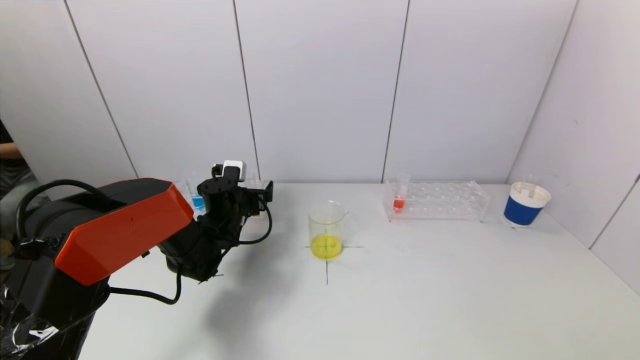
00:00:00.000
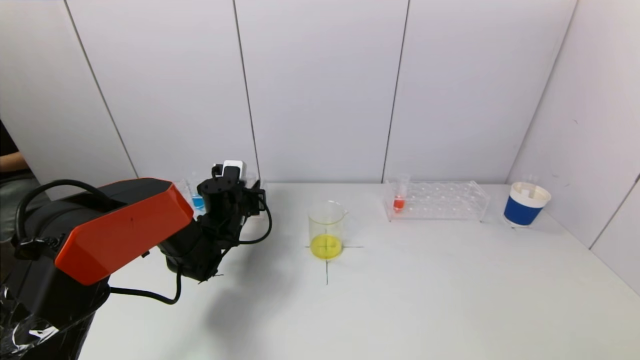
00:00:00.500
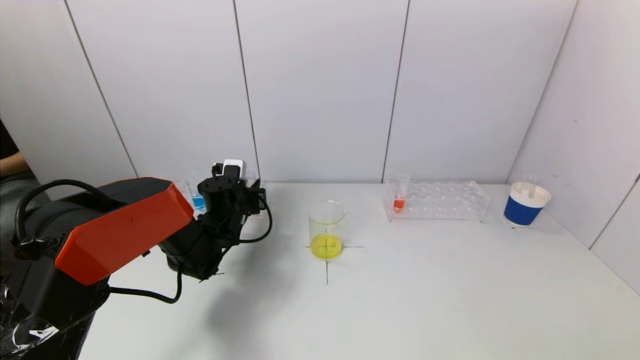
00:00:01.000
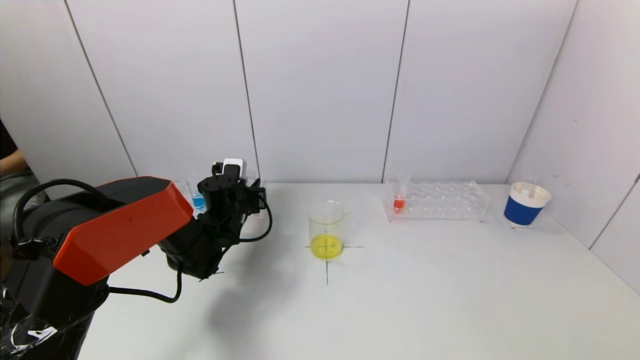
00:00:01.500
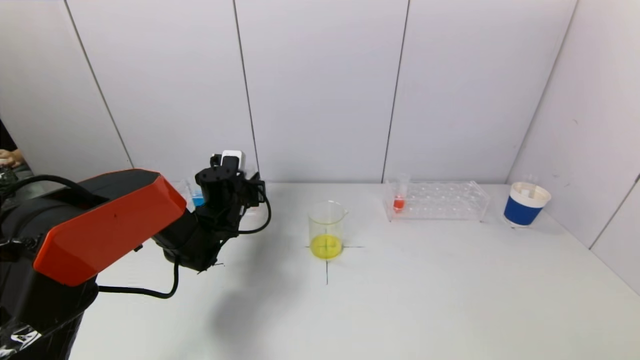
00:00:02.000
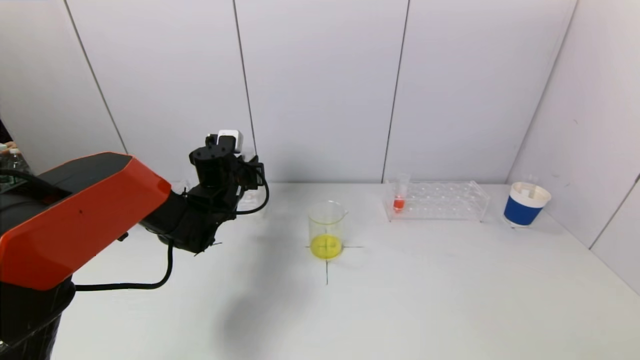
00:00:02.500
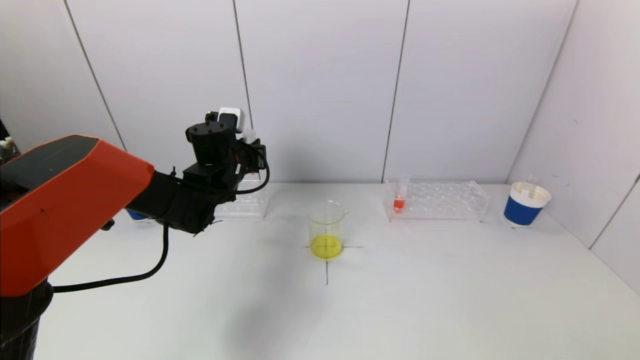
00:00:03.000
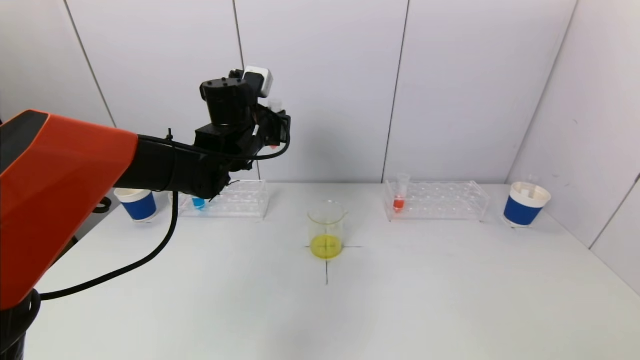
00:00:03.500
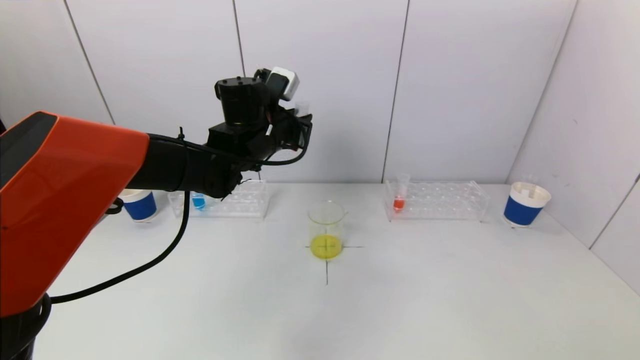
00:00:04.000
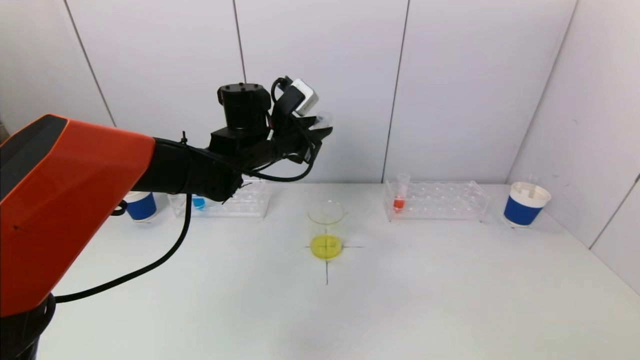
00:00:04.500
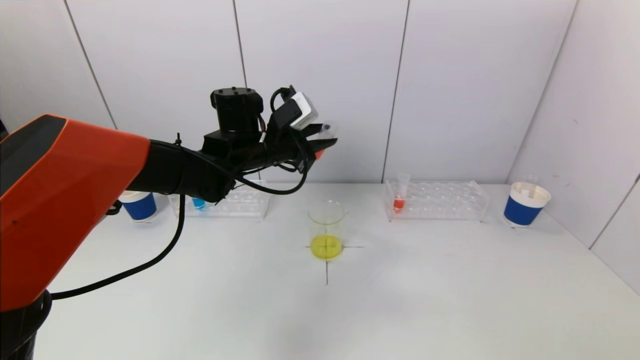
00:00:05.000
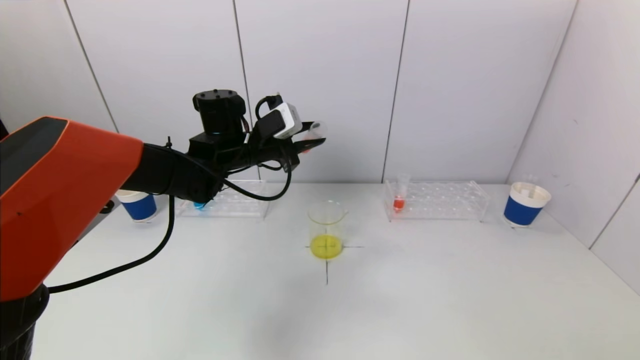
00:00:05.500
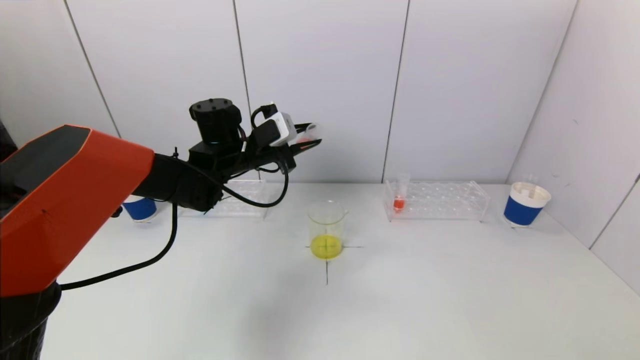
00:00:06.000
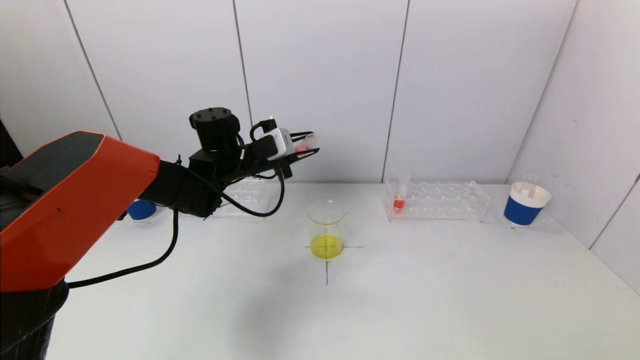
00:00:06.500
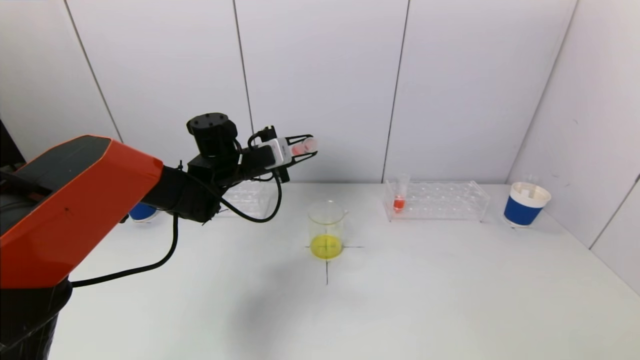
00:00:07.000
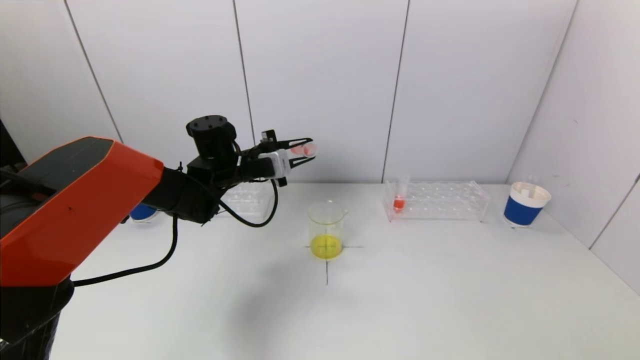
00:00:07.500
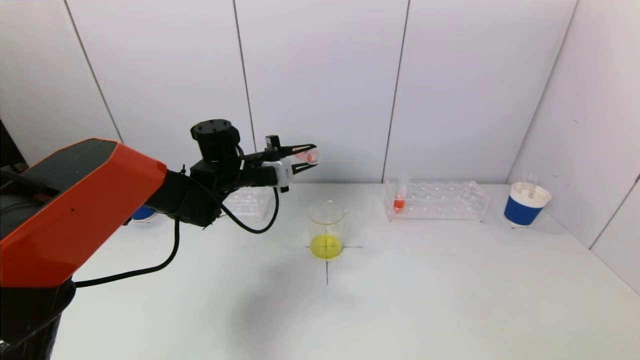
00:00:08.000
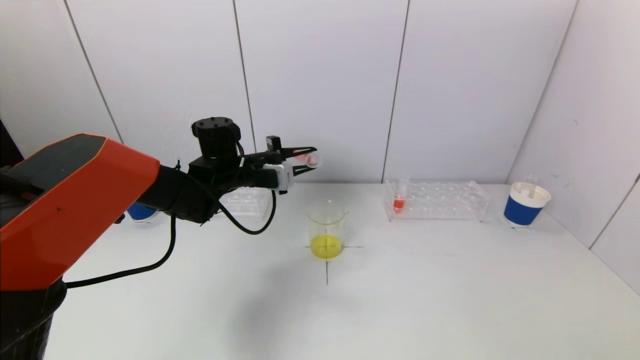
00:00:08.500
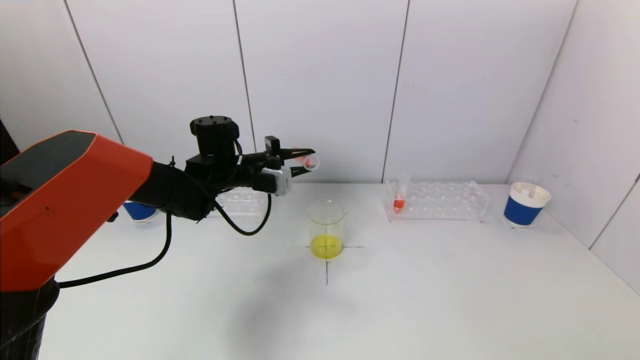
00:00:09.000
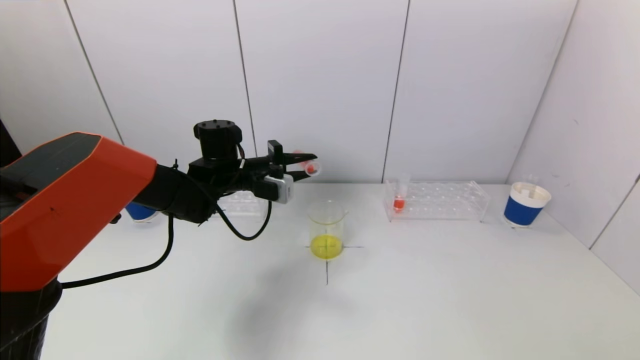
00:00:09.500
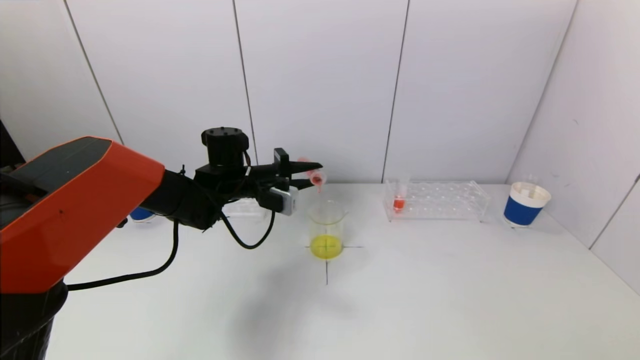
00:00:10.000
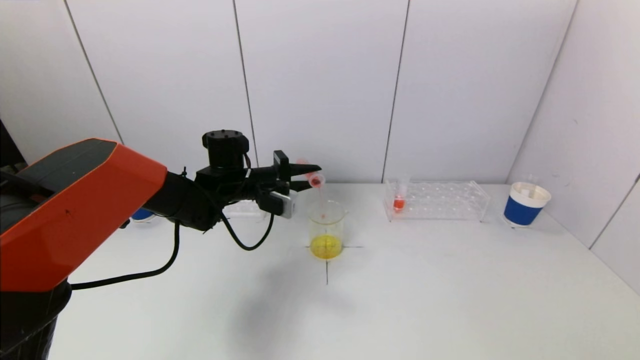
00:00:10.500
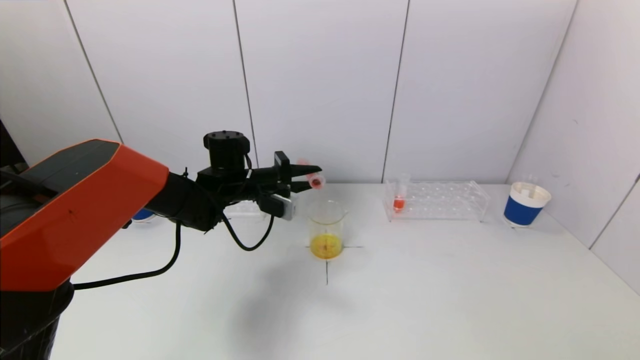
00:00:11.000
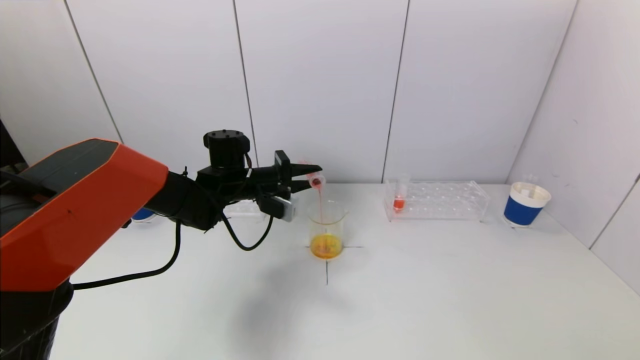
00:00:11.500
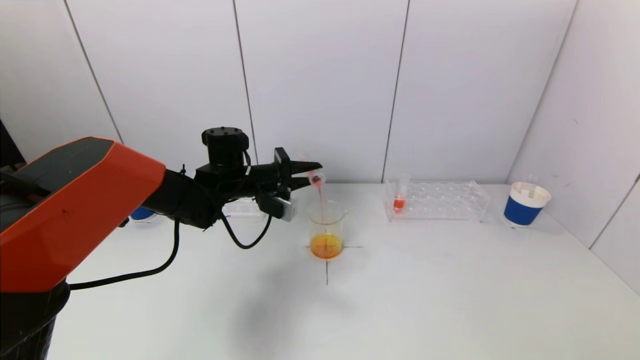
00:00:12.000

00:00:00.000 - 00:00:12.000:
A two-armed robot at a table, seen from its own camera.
Task of the whole recording: pick up a test tube with pigment on left test tube rack and a test tube with pigment on right test tube rack by grippers and pour them into the beaker.
00:00:00.000 - 00:00:02.000: The left gripper closes up.
00:00:02.000 - 00:00:04.000: The left gripper shifts roughly 15 cm upward and to the right.
00:00:04.000 - 00:00:06.000: The left gripper shifts by approximately 5 cm.
00:00:08.000 - 00:00:10.000: The grippers move only a little.
00:00:10.000 - 00:00:12.000: There are only small adjustments of the grippers.

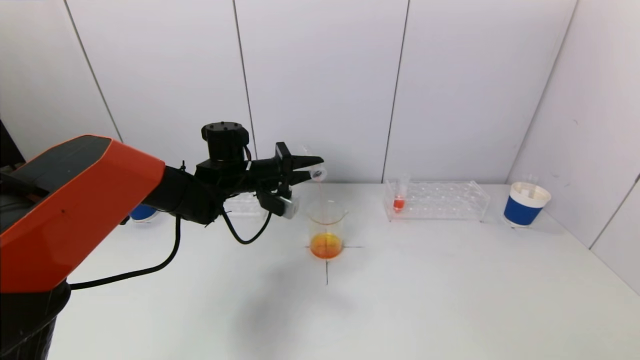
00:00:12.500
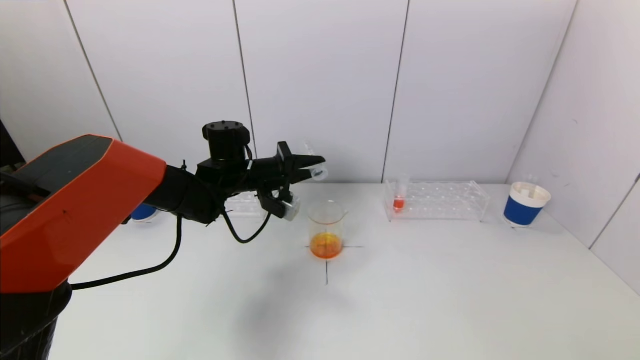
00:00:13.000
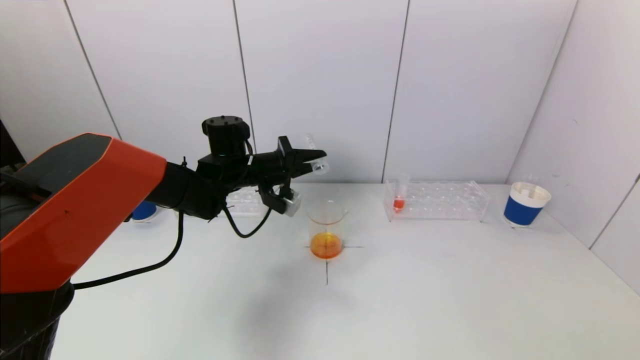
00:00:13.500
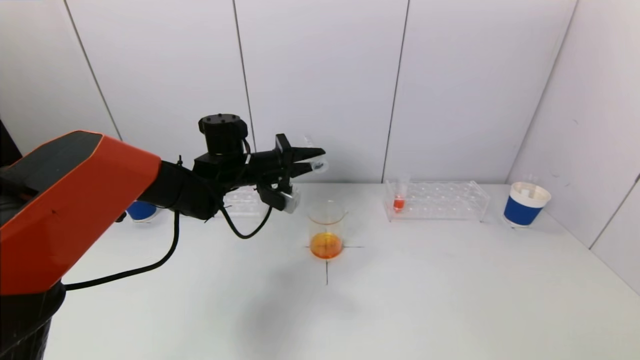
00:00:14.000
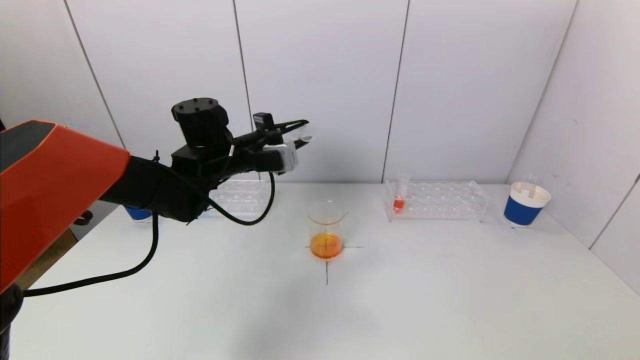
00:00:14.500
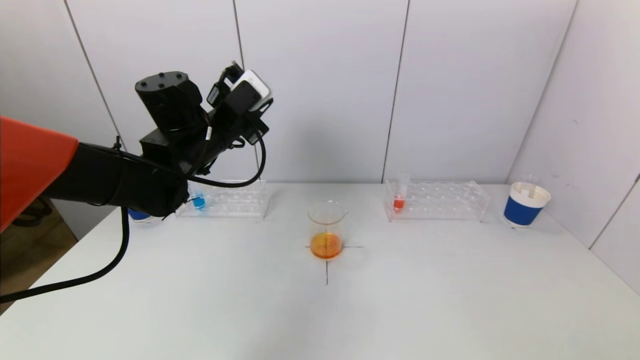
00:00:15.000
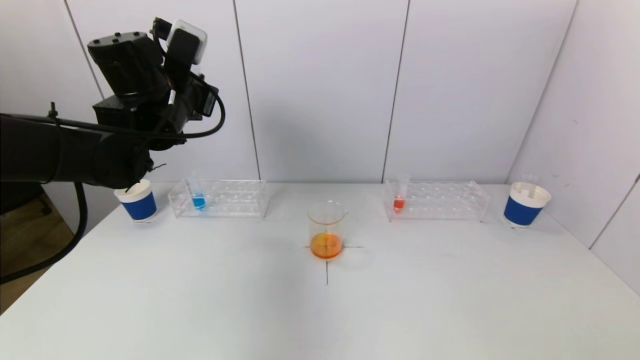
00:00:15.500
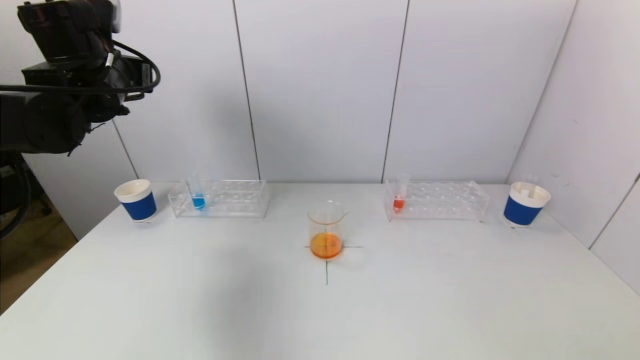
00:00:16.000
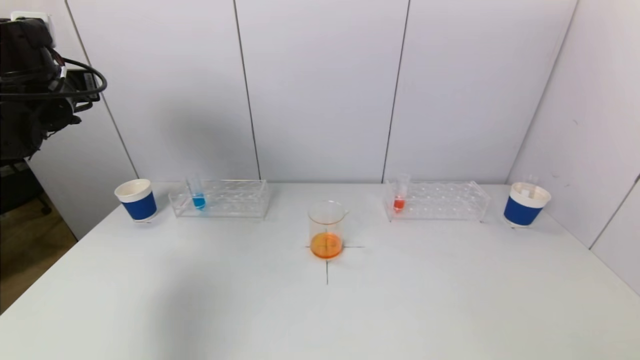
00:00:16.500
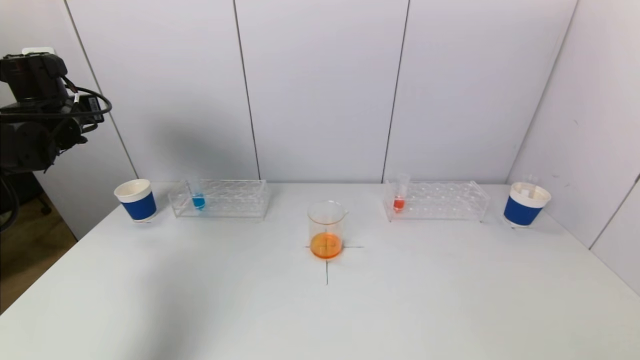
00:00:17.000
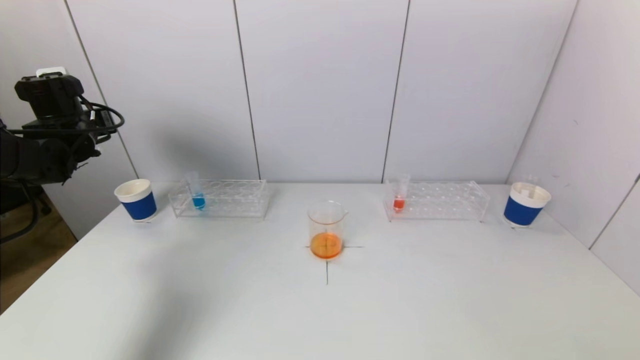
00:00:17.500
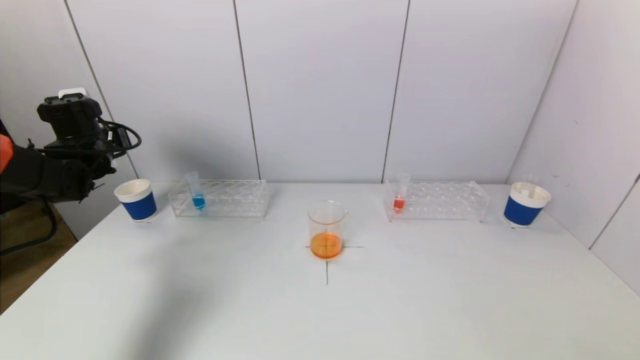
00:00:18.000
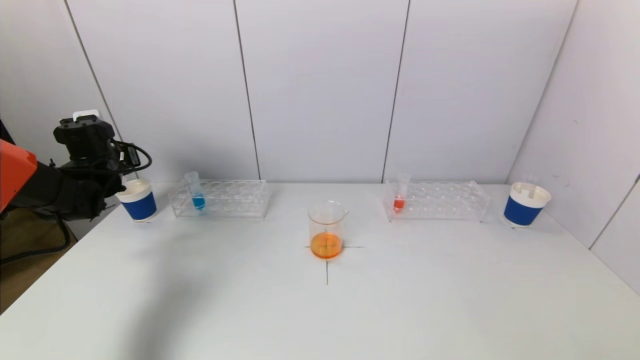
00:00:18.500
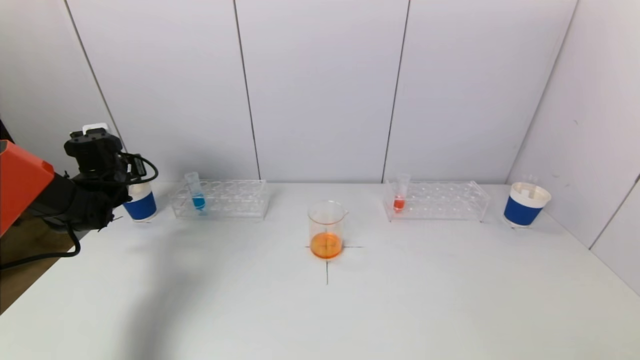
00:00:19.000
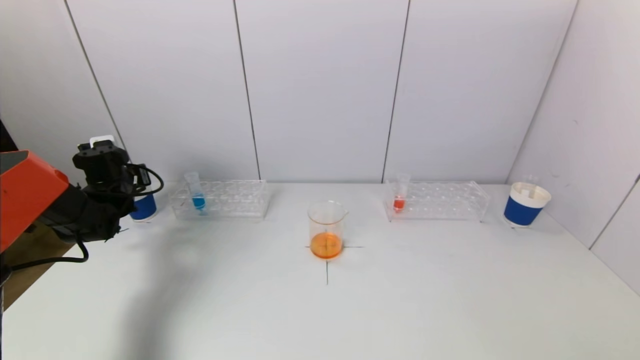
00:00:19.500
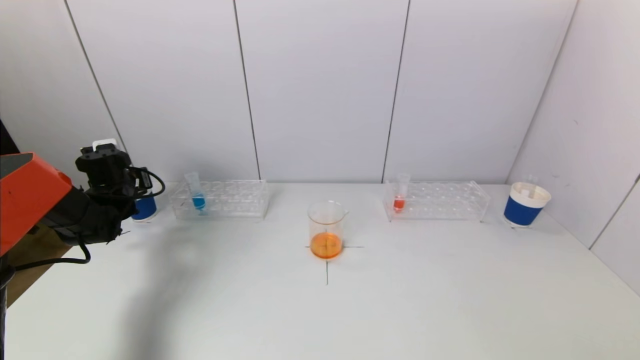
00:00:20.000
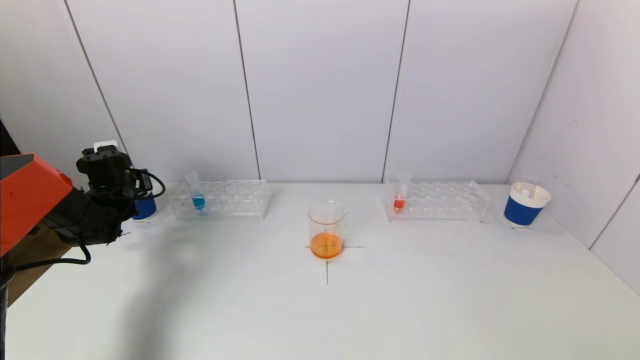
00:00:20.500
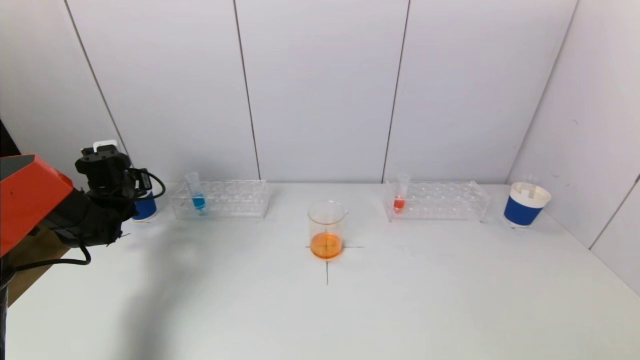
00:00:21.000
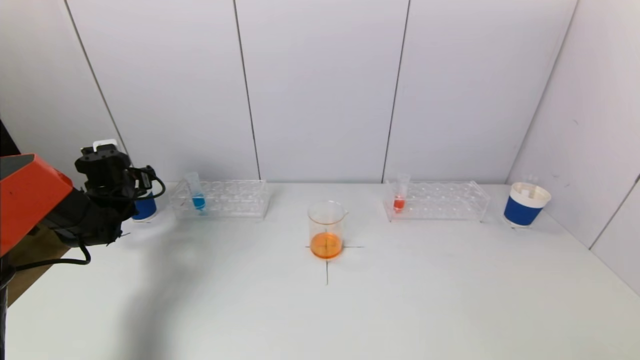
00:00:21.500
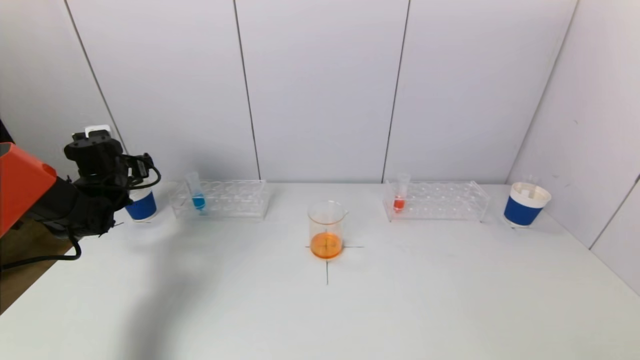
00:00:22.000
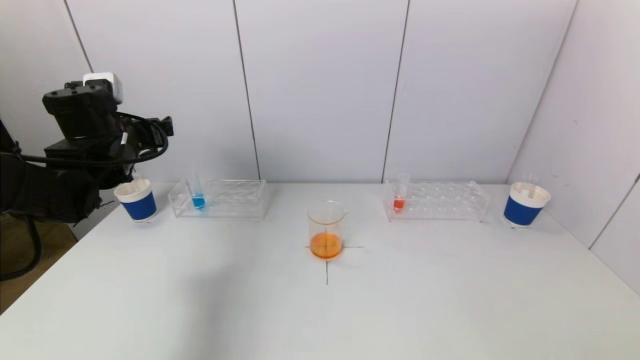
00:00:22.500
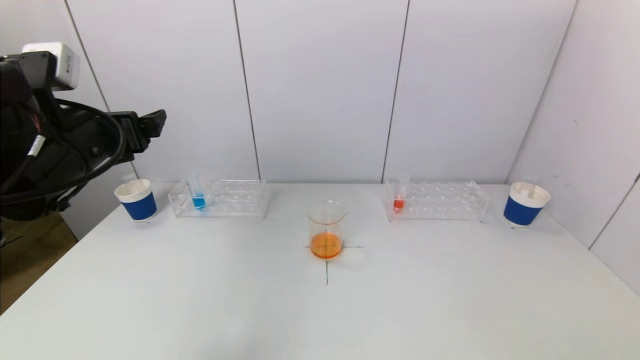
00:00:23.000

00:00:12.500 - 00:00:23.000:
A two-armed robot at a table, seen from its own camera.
Task of the whole recording: pick up a test tube with pigment on left test tube rack and a test tube with pigment on right test tube rack by grippers and pour them into the beaker.
Step, 00:00:14.000 - 00:00:21.000: Place the test tube into the paper cup with the left gripper.
00:00:12.500 - 00:00:14.500: The left gripper travels upward by some 5 cm.
00:00:14.500 - 00:00:16.500: The left gripper shifts about 25 cm to the left and upward.
00:00:16.500 - 00:00:19.000: The left gripper shifts roughly 15 cm downward.
00:00:19.000 - 00:00:21.000: The grippers make only small movements.
00:00:21.000 - 00:00:23.000: The left gripper moves backward, upward and to the right, approximately 30 cm, and opens up.
